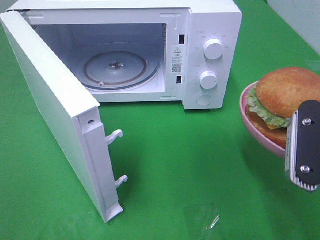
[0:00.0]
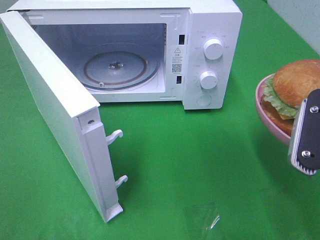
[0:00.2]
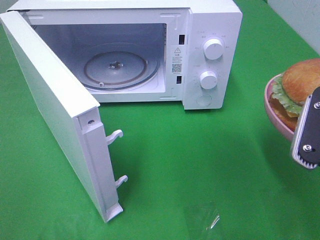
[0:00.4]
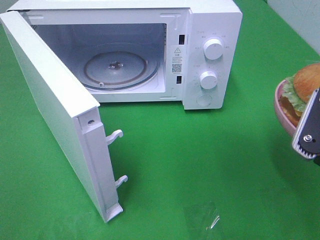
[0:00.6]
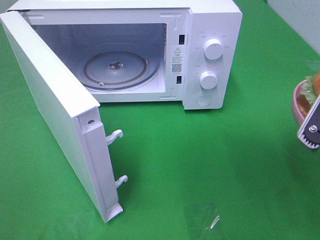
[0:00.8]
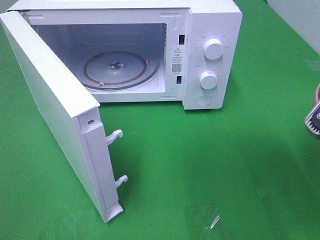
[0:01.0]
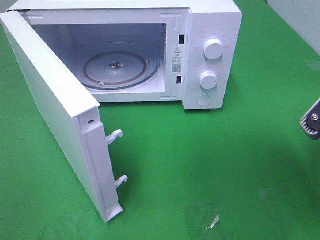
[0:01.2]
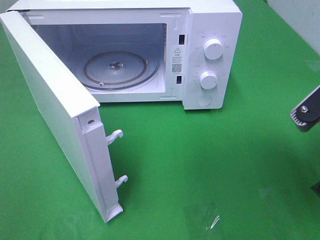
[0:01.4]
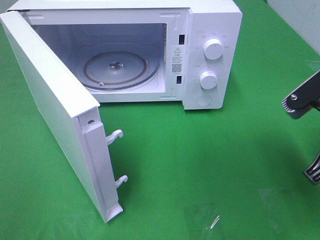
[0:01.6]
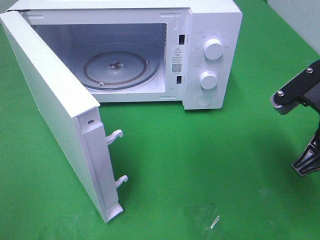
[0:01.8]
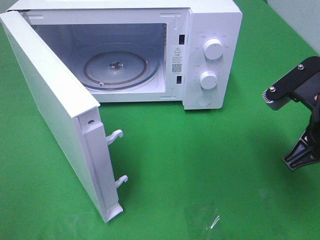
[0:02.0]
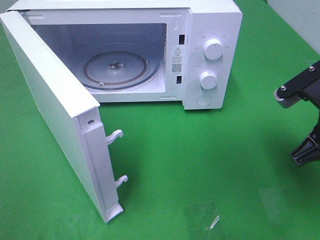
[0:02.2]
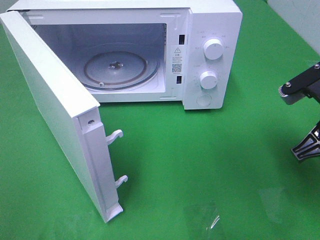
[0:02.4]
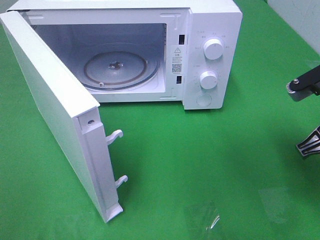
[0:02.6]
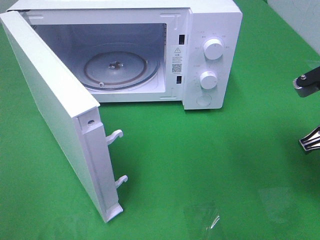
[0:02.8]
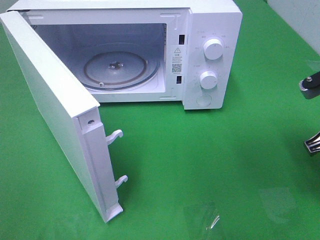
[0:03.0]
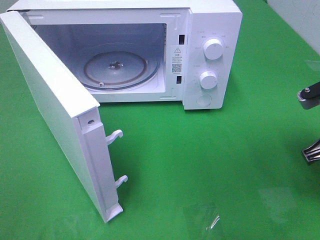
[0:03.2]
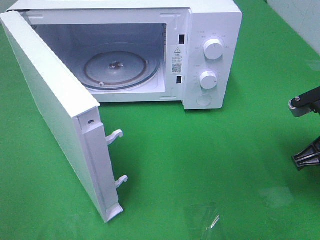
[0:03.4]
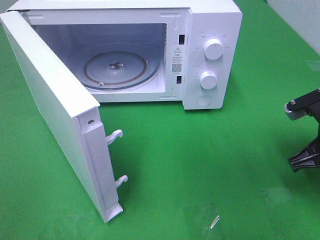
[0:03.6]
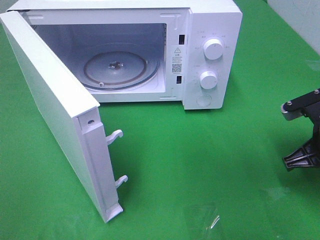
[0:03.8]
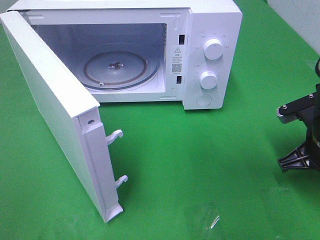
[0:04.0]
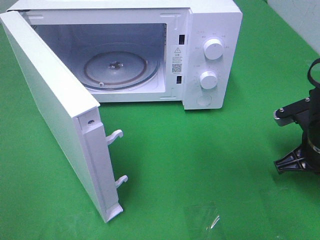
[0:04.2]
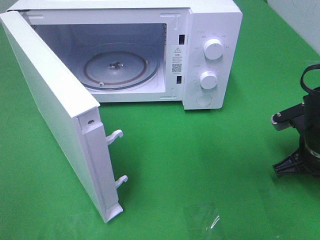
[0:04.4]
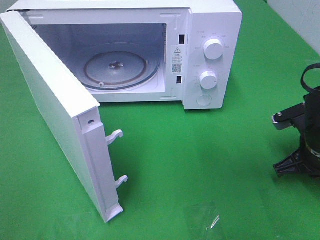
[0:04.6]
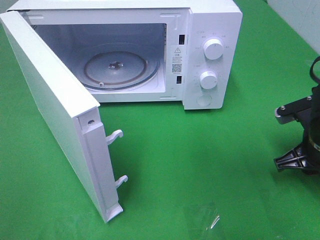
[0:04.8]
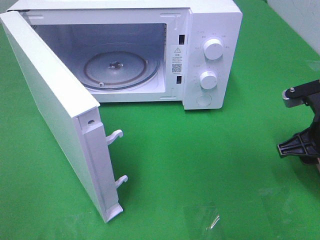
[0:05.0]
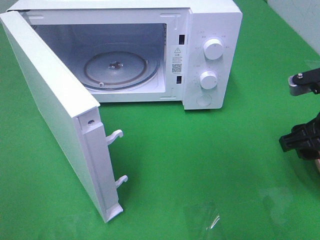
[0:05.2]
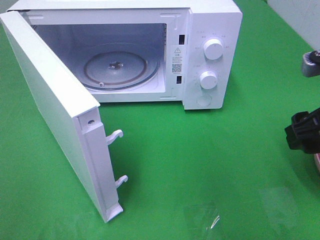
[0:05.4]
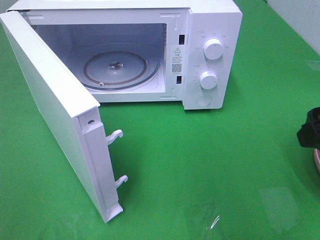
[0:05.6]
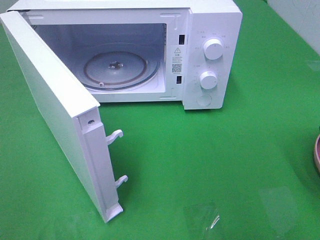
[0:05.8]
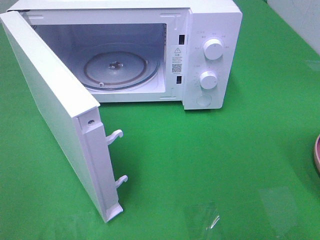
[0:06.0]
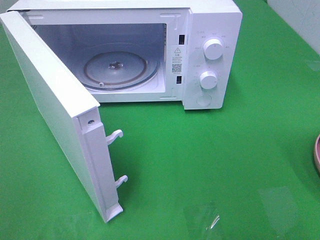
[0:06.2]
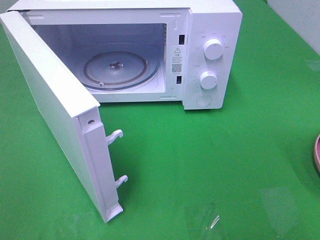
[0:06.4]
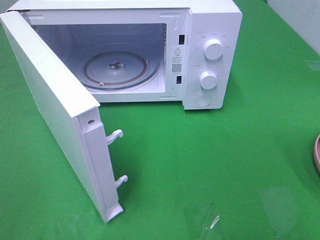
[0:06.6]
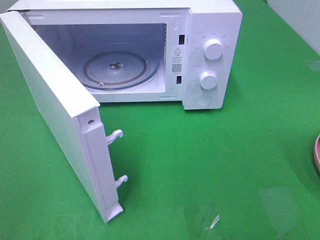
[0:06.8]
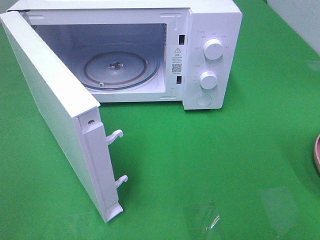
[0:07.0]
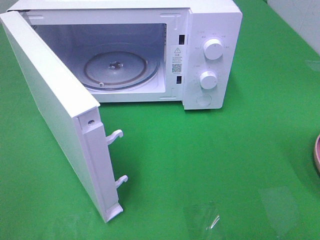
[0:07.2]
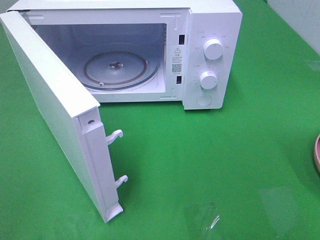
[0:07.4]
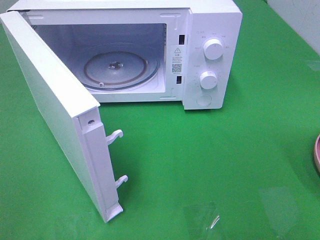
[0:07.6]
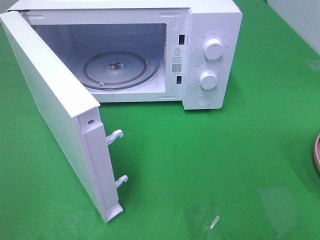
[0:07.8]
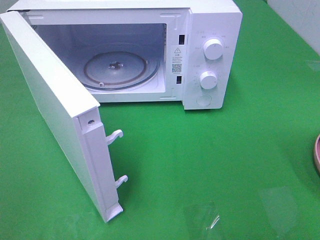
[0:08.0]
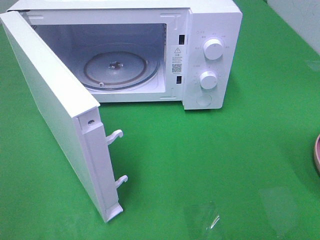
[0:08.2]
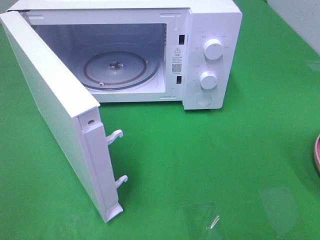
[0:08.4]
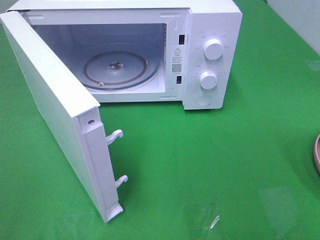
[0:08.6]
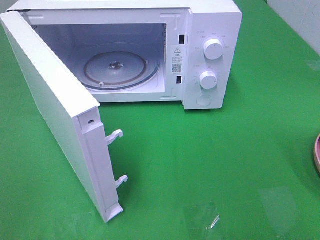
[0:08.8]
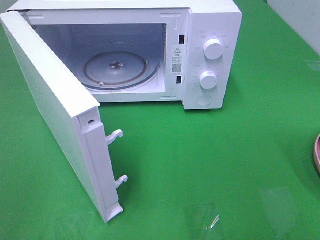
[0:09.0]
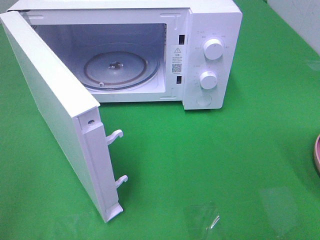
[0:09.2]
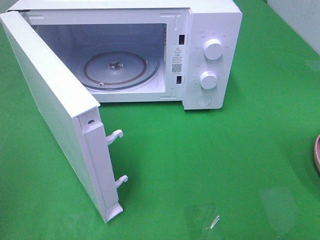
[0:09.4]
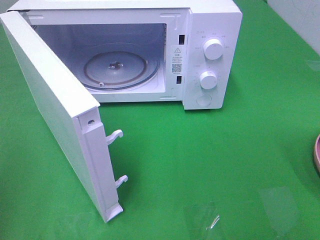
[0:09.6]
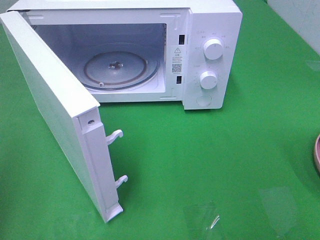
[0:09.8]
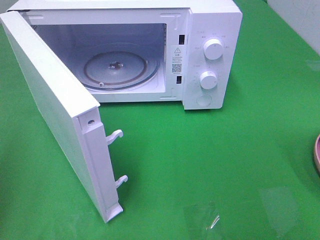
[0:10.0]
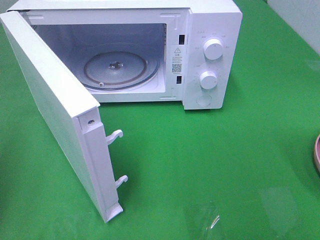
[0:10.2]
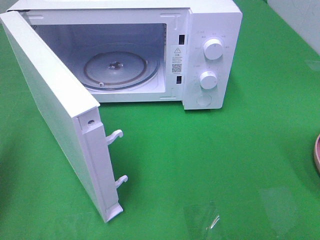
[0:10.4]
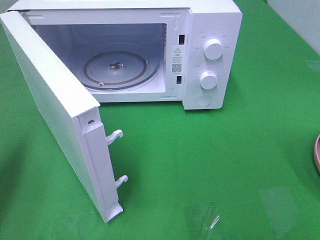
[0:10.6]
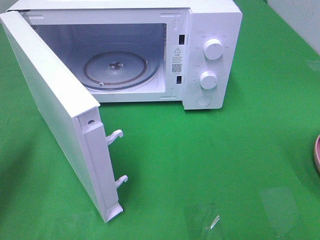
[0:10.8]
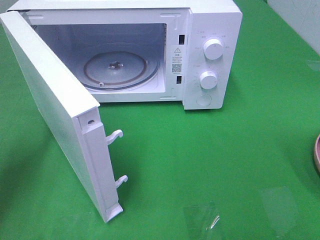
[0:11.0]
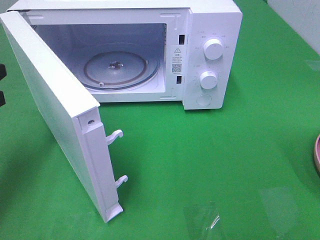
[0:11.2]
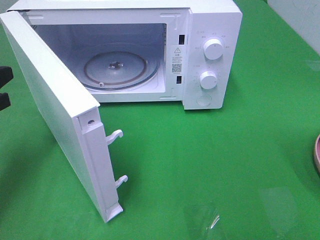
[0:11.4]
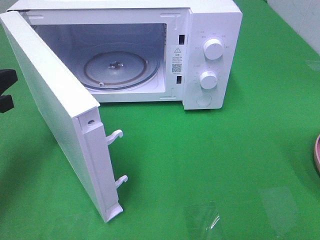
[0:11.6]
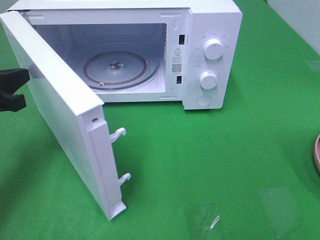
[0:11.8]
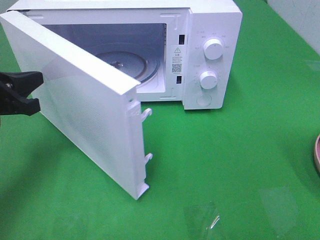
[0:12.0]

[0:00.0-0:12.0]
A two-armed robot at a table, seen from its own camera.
Task of the whole recording: Heat the burger.
Step, 0:00.0 to 0:04.6: Right hand: place the plate on the table.
0:01.6 to 0:03.0: The right gripper moves forward, approximately 5 cm.
0:03.0 to 0:04.4: The right gripper moves downward, about 10 cm.
0:04.4 to 0:06.0: The right gripper travels upward and backward by approximately 25 cm, and opens its fingers.
0:09.0 to 0:10.4: The left gripper moves forward, some 15 cm, and closes its fingers.
0:10.4 to 0:12.0: The left gripper moves forward, downward and to the right, approximately 15 cm.

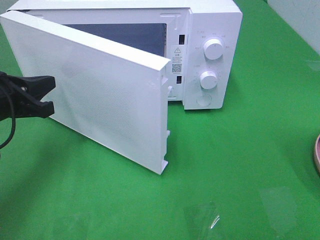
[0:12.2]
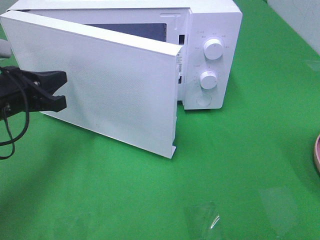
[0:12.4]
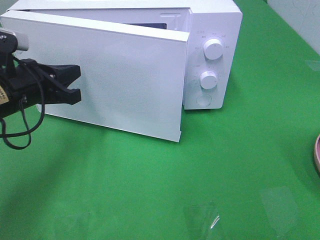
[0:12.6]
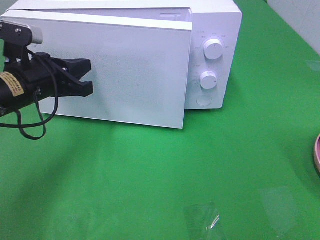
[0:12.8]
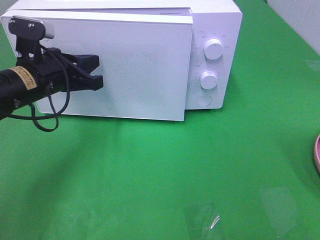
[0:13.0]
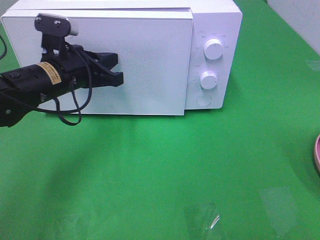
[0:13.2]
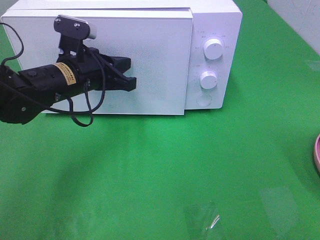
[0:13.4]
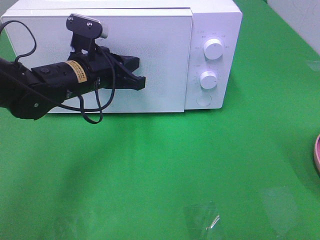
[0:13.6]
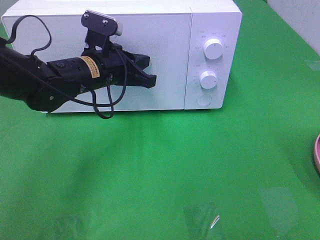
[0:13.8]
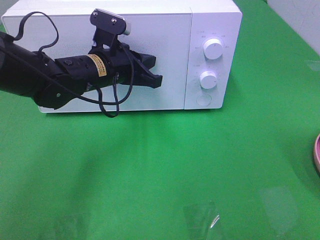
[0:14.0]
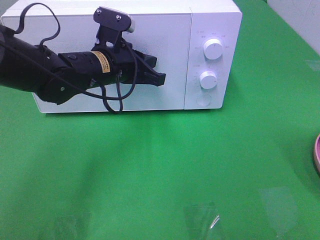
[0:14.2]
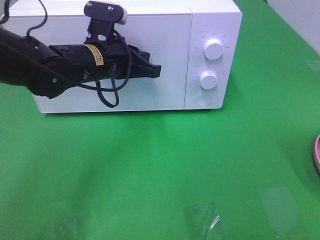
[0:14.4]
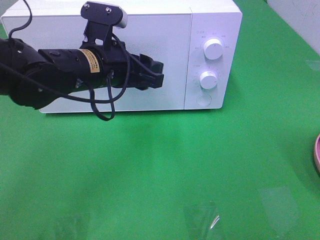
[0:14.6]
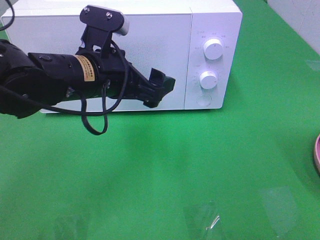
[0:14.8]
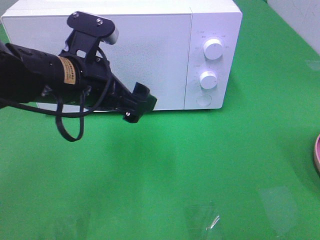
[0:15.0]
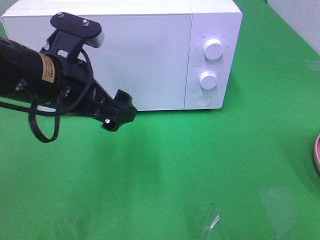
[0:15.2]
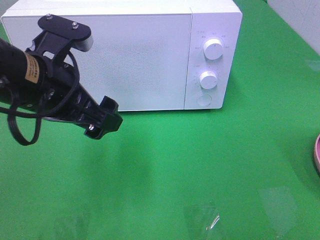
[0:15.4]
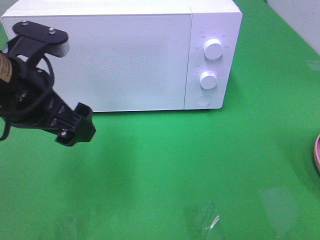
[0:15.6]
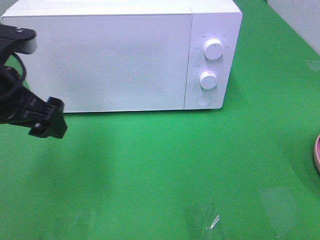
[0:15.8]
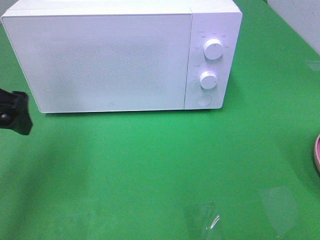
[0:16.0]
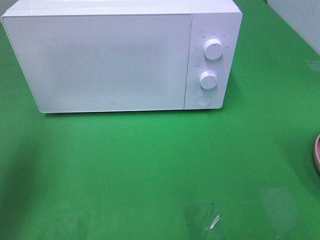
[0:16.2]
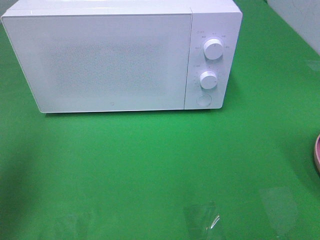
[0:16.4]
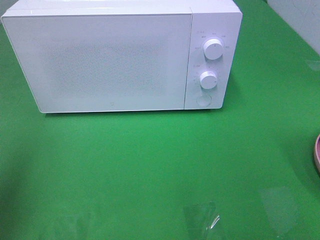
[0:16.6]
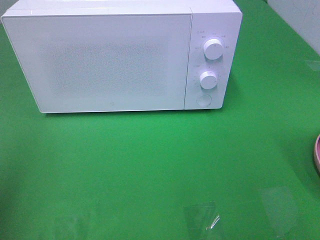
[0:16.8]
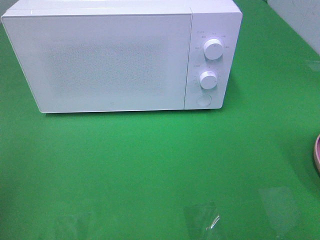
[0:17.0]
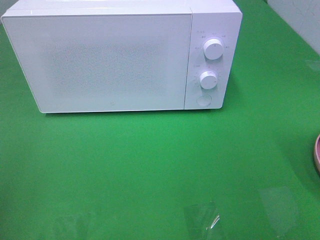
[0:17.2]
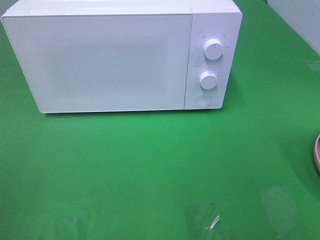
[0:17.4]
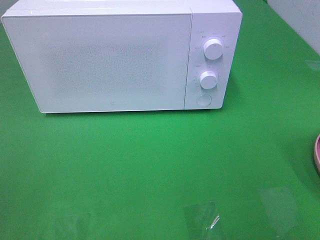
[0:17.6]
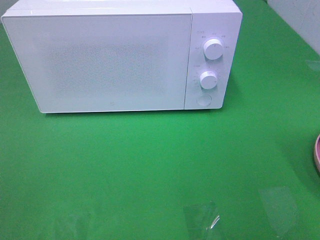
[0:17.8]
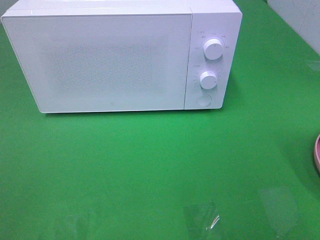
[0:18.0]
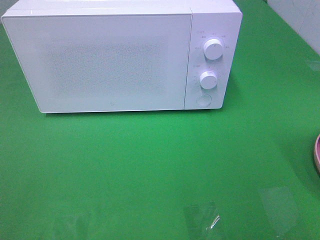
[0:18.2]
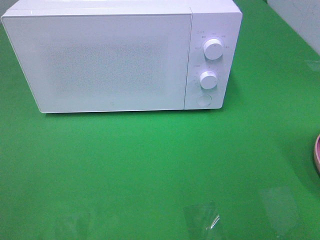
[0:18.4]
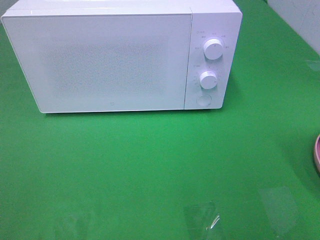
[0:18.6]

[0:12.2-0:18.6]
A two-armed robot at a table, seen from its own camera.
Task of the whole recording: Heat the burger.
Step, 0:12.2 to 0:14.4: Left hand: close the microwave door.
0:12.2 to 0:13.8: The left gripper moves to the right and forward, roughly 15 cm.
0:13.8 to 0:15.4: The left gripper moves backward and upward, roughly 15 cm, and opens.
0:15.4 to 0:17.0: The left gripper heads to the left and backward, covering some 25 cm.
